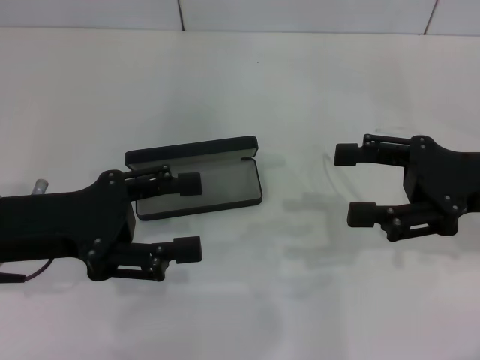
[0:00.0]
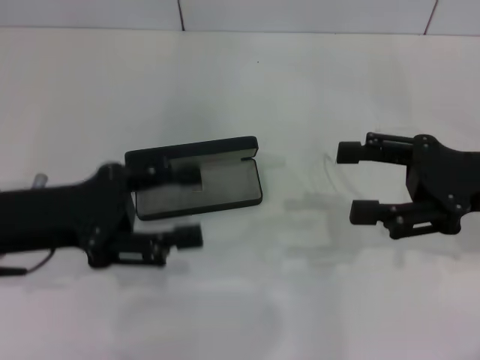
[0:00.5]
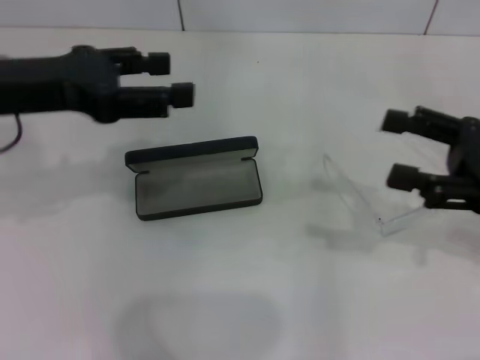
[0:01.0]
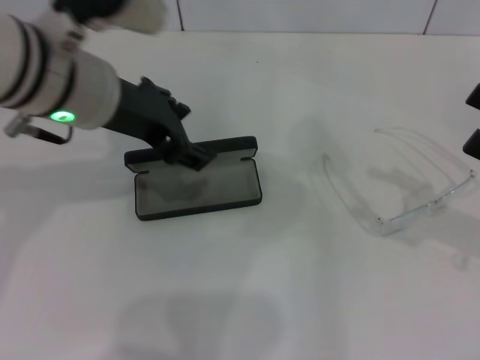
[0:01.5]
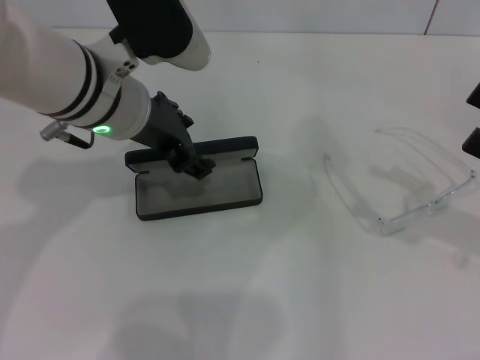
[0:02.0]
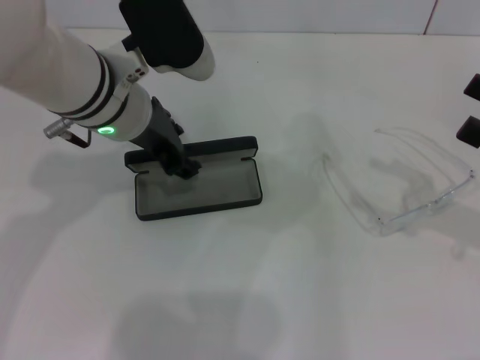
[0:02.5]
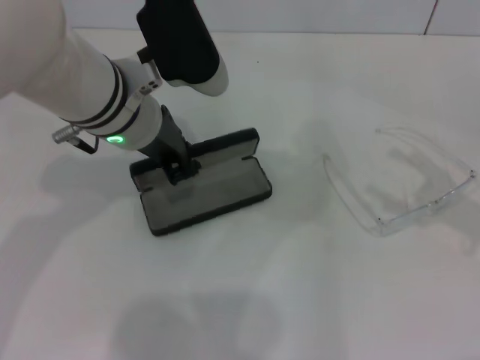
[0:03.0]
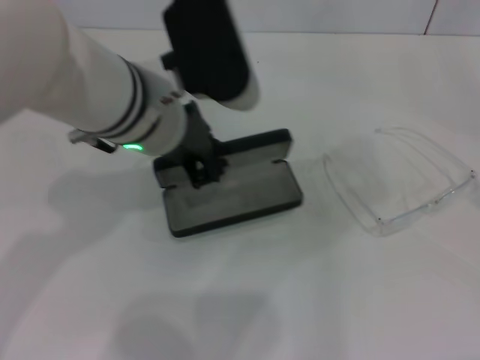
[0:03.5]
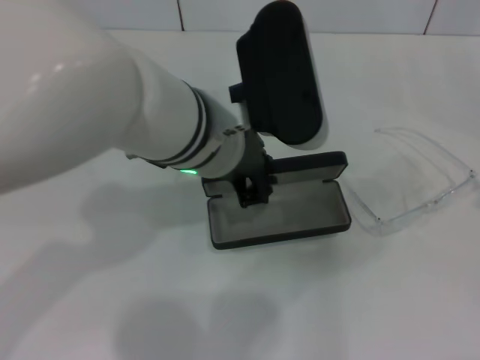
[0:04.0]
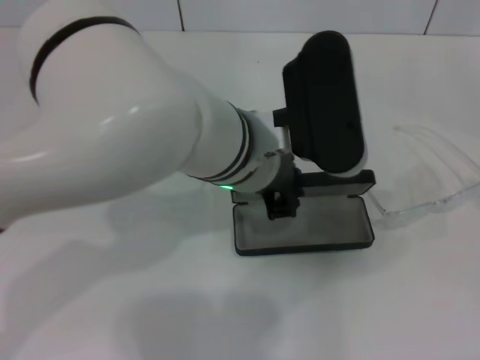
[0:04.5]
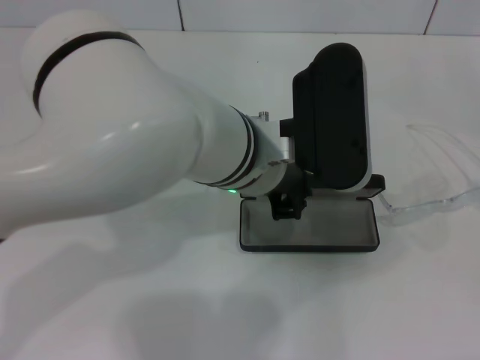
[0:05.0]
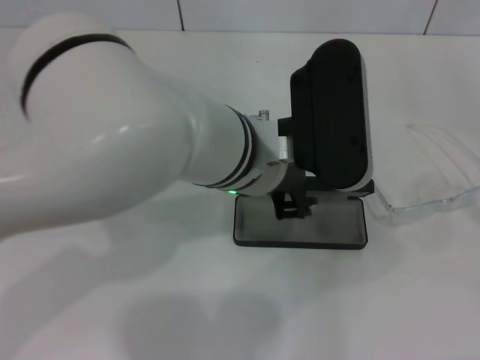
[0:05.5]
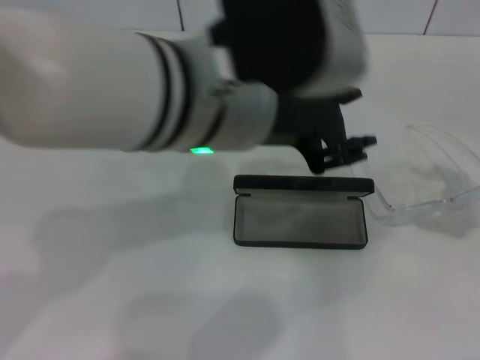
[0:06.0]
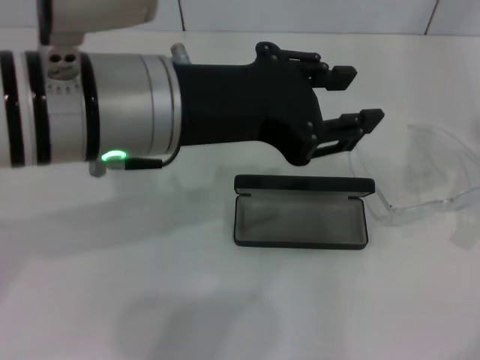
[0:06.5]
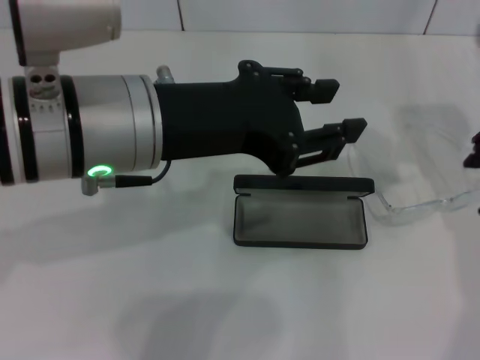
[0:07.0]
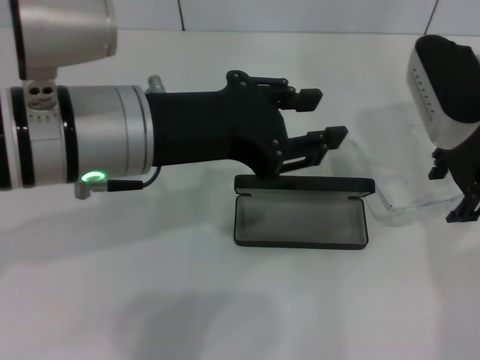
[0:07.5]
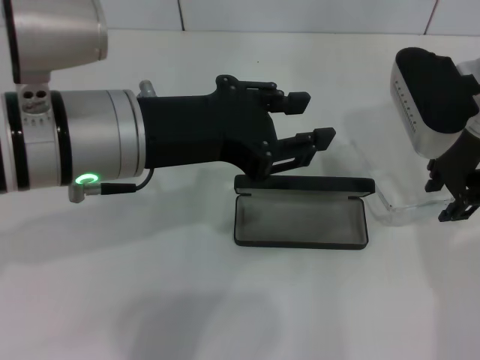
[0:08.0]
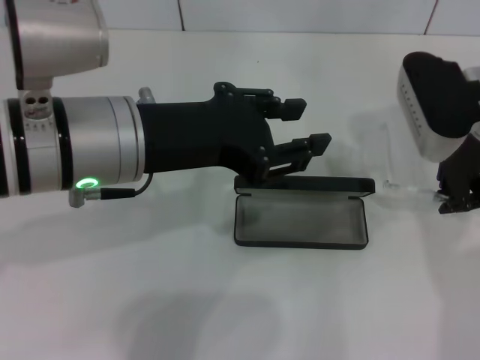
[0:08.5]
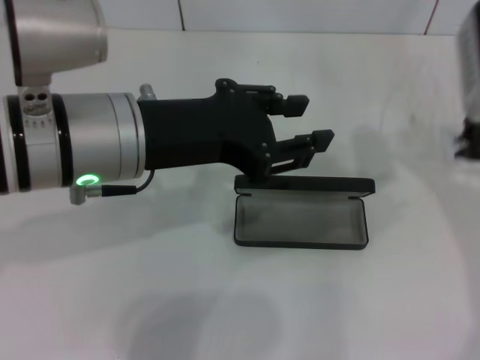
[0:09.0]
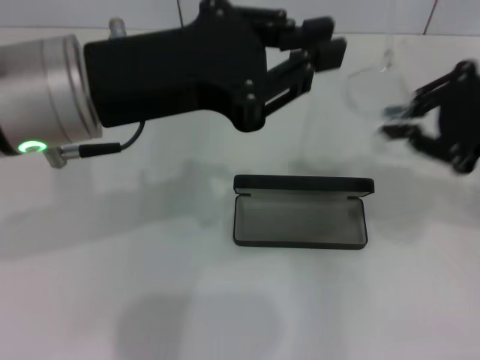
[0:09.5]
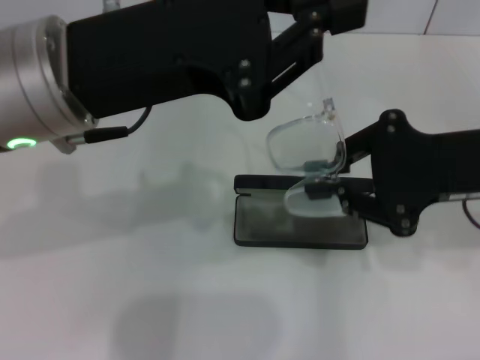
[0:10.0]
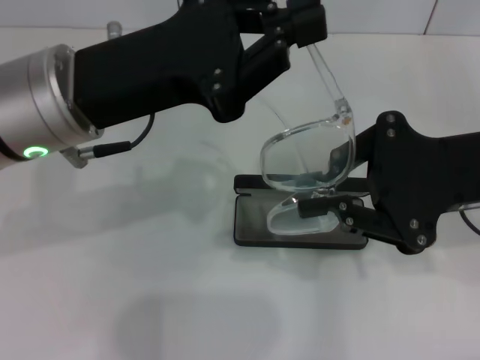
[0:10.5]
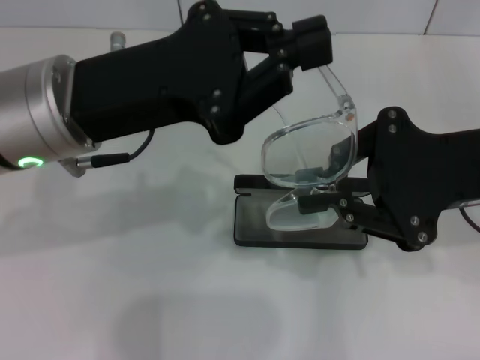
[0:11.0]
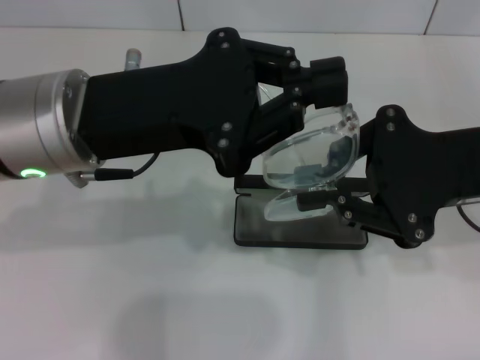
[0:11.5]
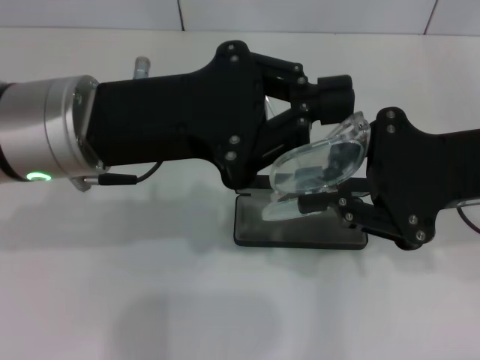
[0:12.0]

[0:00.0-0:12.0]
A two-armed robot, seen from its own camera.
Step, 0:00.0 to 0:02.5: Grab the glasses case with your left hand.
Step, 0:03.0 to 0:05.0: Place the glasses case in the center of the table with your left hand.
Step, 0:05.5 to 0:08.0: Grab the eyeglass frame with your right hand.
0:00.0 to 0:02.0: The right gripper moves to the right, some 10 cm. Meanwhile the left gripper goes some 15 cm to the right, forward and upward.
0:02.0 to 0:04.0: The right gripper travels backward and to the right by roughly 10 cm. Meanwhile the left gripper heads to the right, covering roughly 10 cm, and closes up.
0:04.0 to 0:06.0: The right gripper goes some 10 cm forward and upward; the left gripper travels upward by approximately 5 cm, and opens up.
0:06.0 to 0:08.0: The left gripper heads to the left, covering some 10 cm. Meanwhile the right gripper travels to the left and forward by about 25 cm.
0:08.0 to 0:10.0: The left gripper closes its fingers, while the right gripper is displaced backward by about 10 cm, and closes.

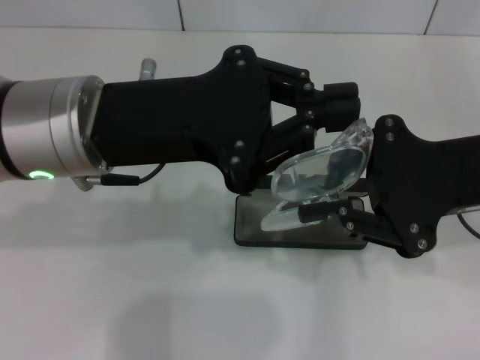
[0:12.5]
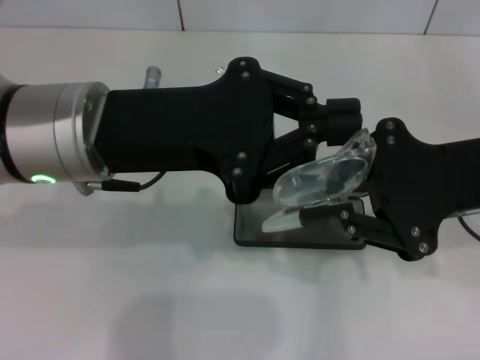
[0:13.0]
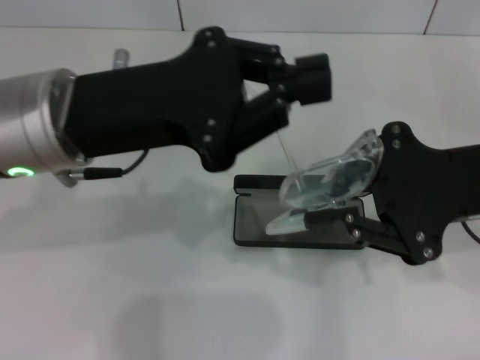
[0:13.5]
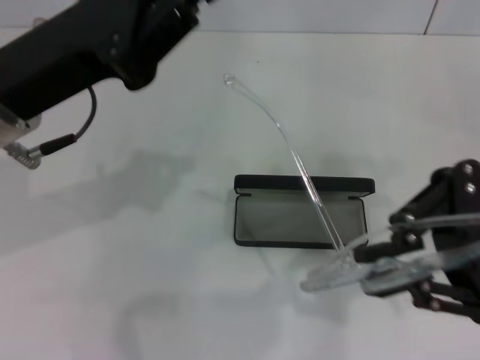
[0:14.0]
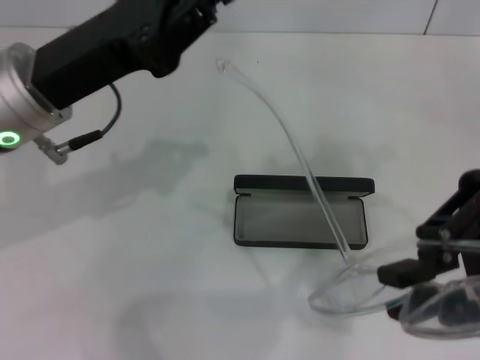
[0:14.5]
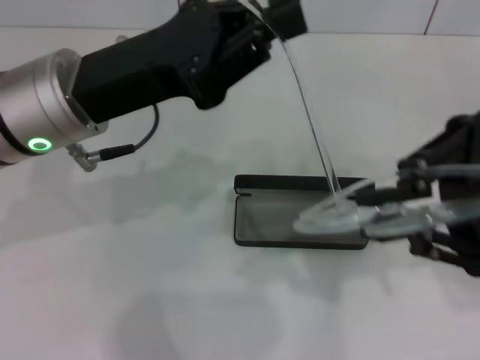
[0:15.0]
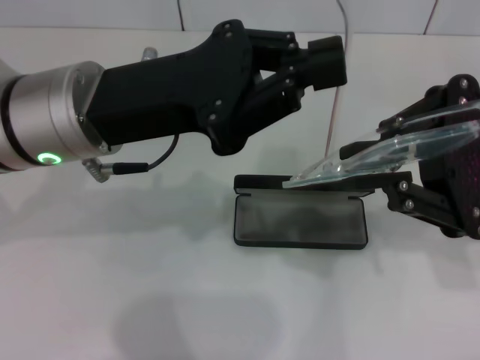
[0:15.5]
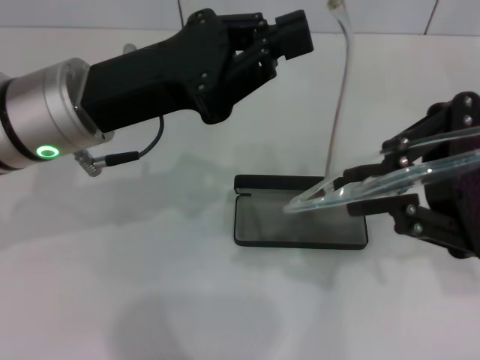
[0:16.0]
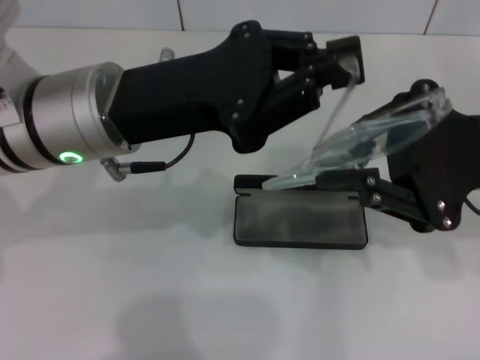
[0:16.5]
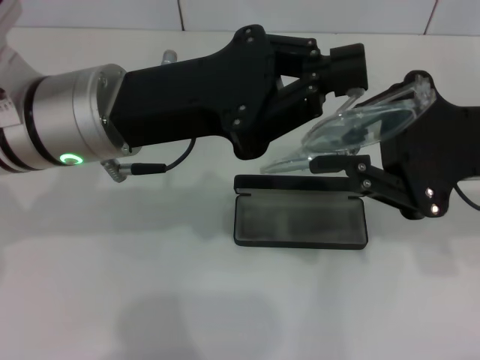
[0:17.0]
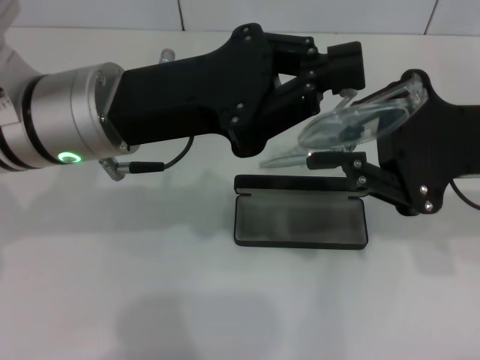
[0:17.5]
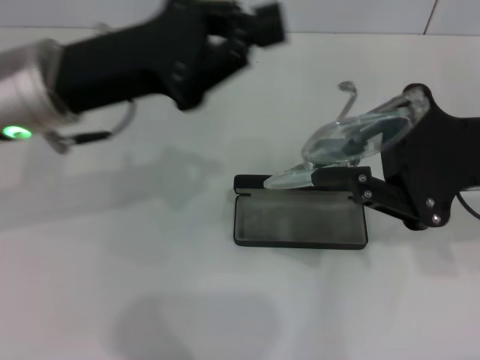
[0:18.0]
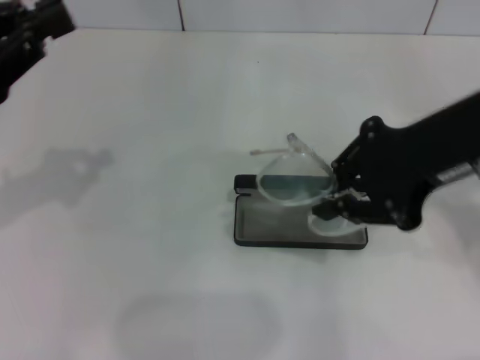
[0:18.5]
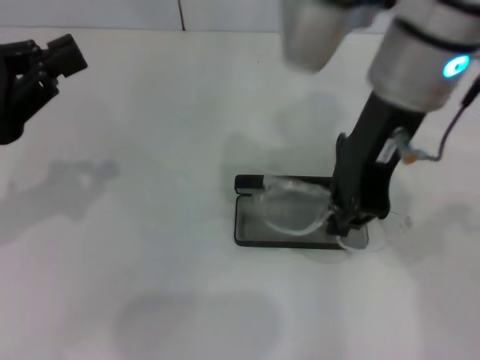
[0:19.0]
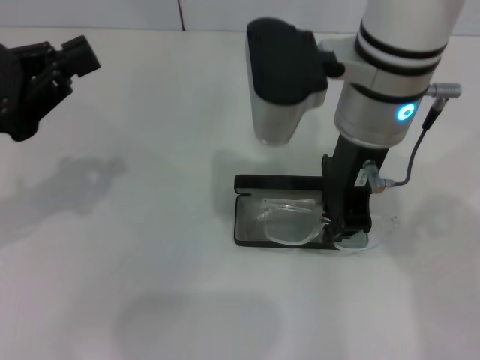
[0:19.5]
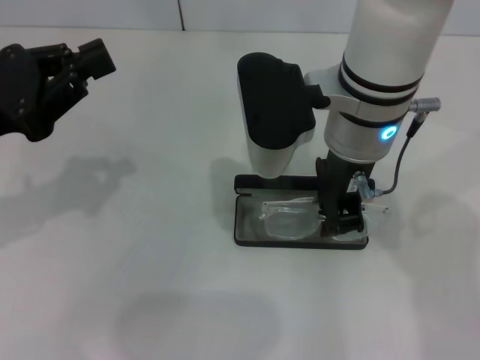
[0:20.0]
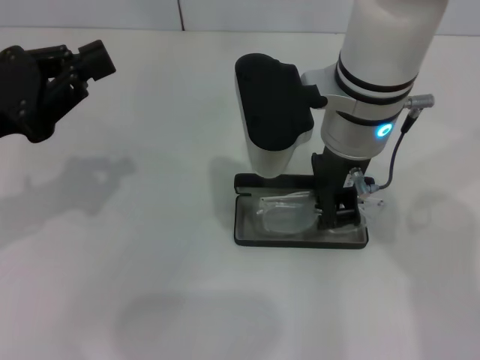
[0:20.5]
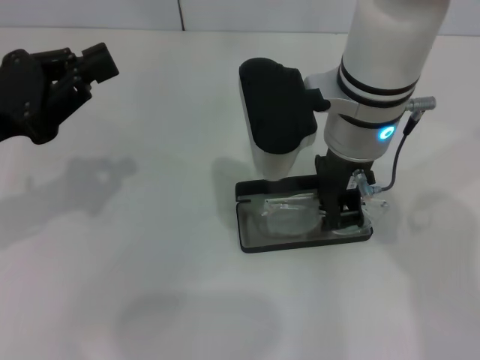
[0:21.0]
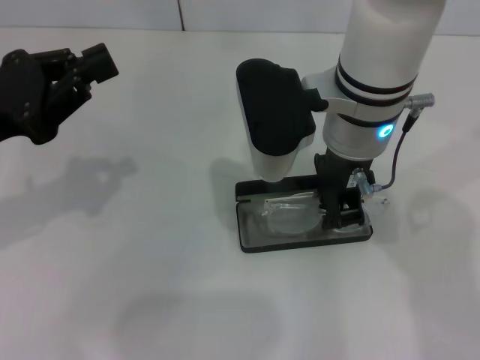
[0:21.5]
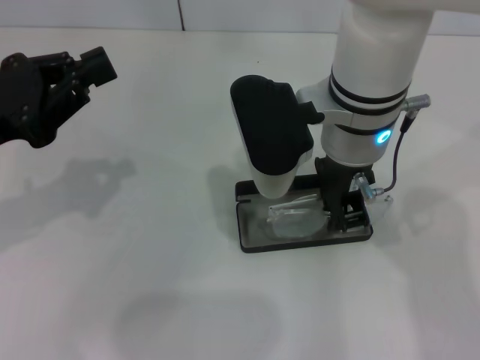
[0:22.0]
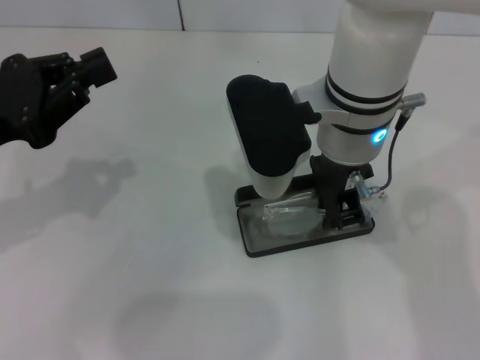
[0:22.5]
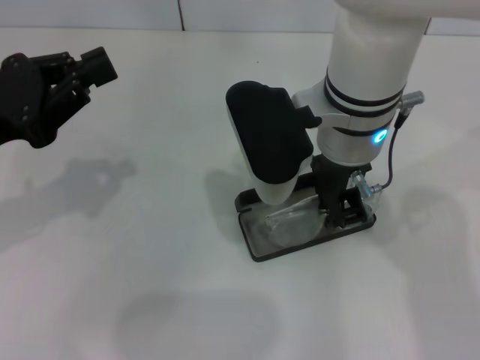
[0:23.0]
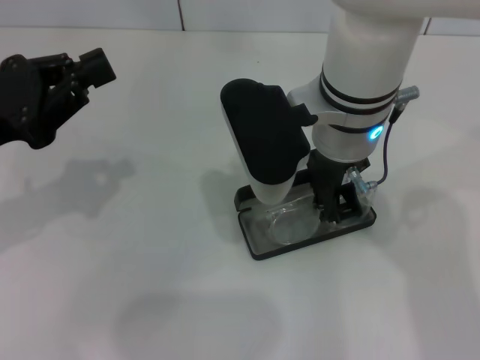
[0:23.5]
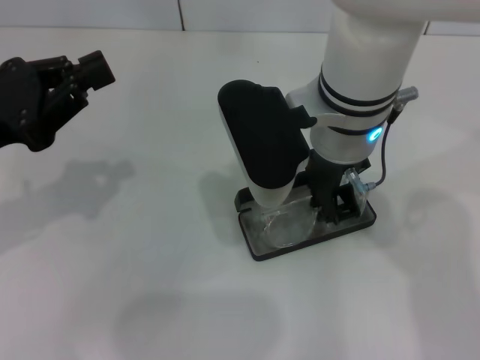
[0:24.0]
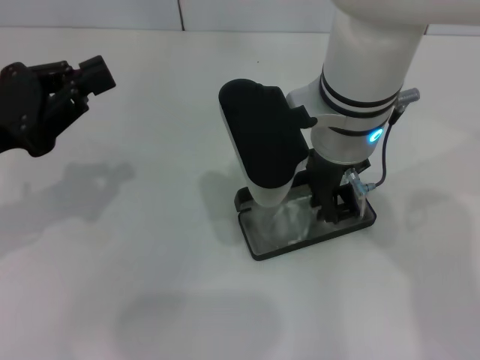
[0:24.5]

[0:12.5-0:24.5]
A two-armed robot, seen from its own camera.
Step, 0:12.5 to 0:17.5: Fold the frame with your left hand.
0:12.5 to 0:14.5: The left gripper moves about 5 cm.
0:14.5 to 0:16.5: The left gripper travels to the right by some 5 cm. Meanwhile the right gripper changes place by approximately 5 cm.
0:16.5 to 0:18.5: The left gripper travels to the left by about 15 cm, while the right gripper travels upward by some 5 cm.
0:18.5 to 0:20.5: The right gripper shifts roughly 15 cm to the left, downward and forward.
0:20.5 to 0:24.5: There are only small adjustments of the grippers.

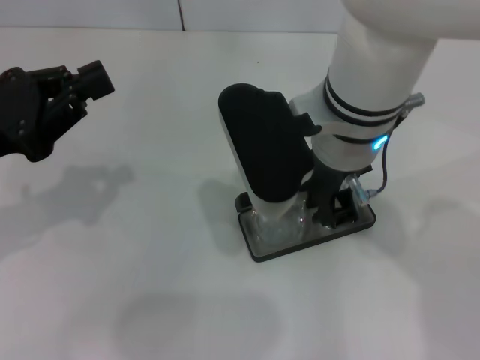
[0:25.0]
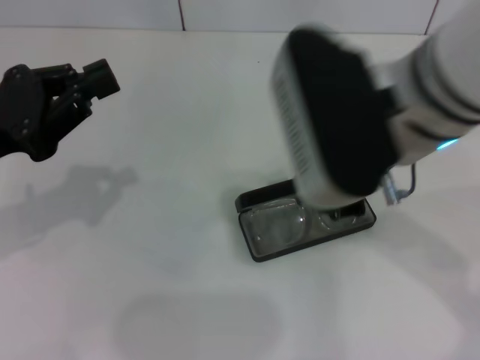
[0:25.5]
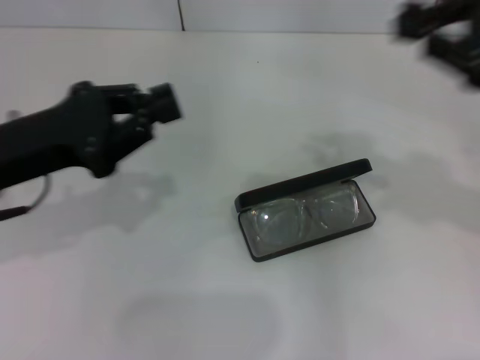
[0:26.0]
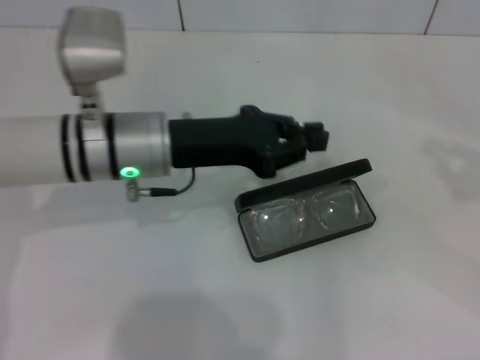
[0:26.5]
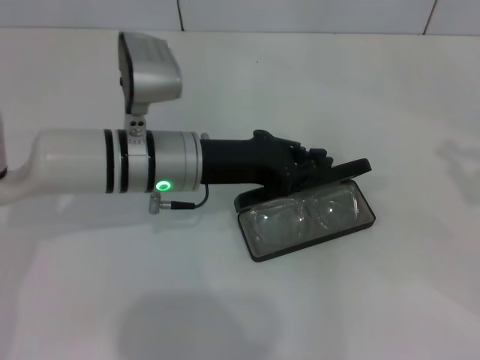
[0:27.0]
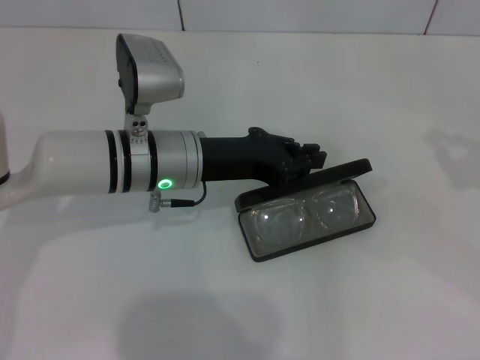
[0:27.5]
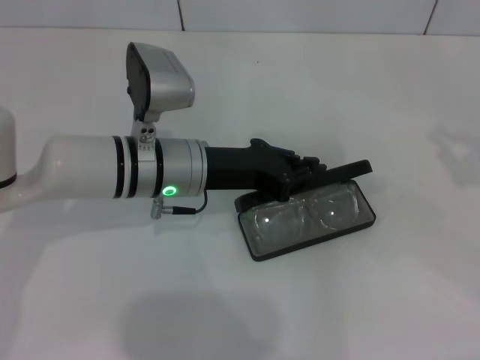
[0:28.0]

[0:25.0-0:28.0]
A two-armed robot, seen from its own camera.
0:25.0 to 0:26.5: The left gripper is displaced to the right and forward by roughly 20 cm; the right gripper travels to the right by roughly 35 cm.
0:26.5 to 0:28.0: The grippers move only a little.
